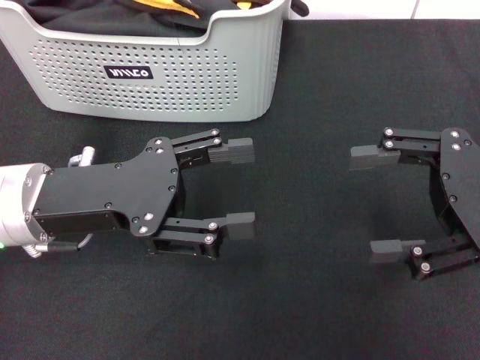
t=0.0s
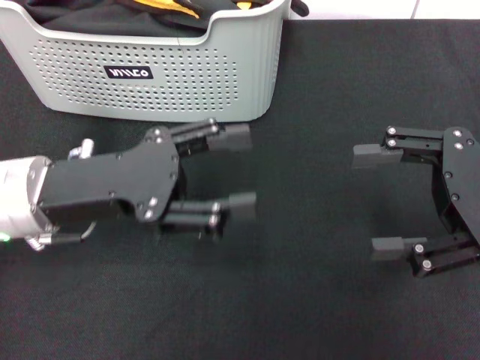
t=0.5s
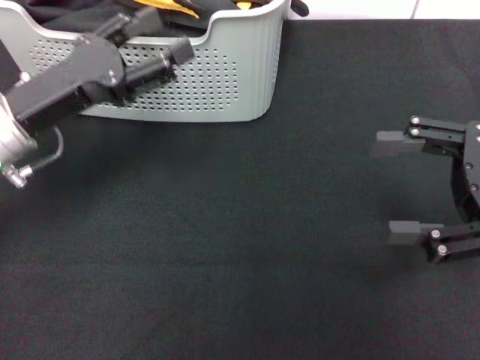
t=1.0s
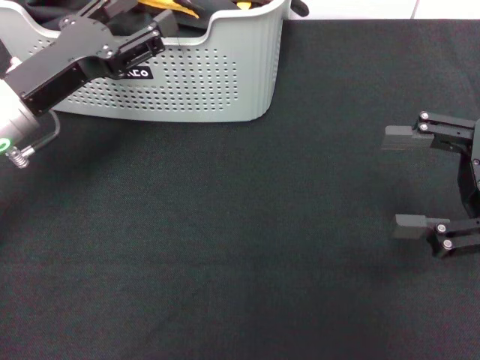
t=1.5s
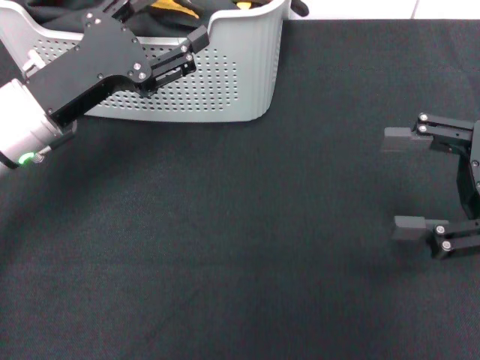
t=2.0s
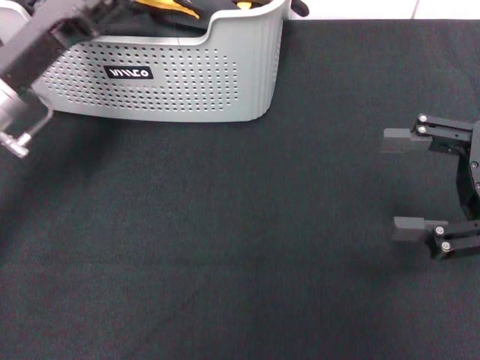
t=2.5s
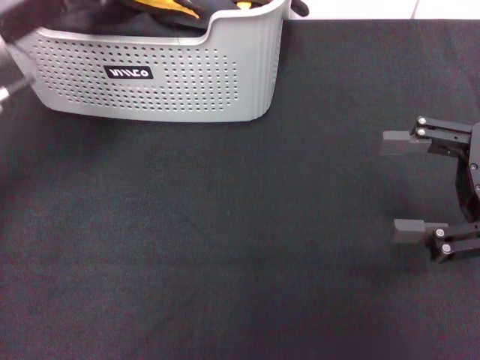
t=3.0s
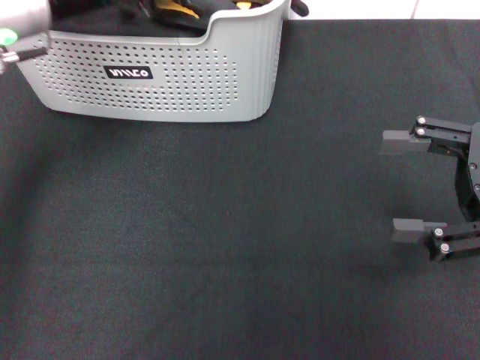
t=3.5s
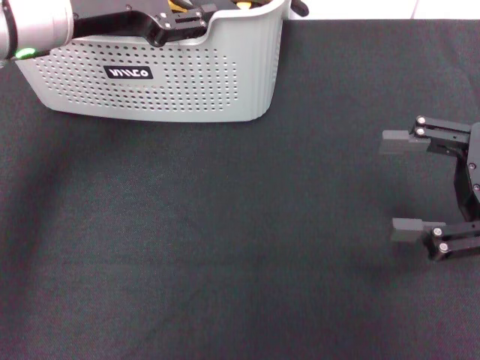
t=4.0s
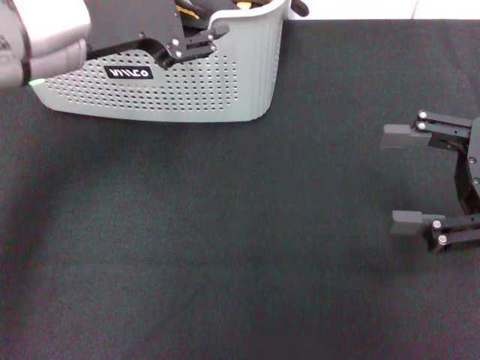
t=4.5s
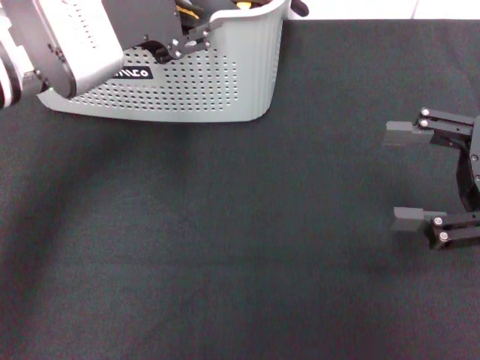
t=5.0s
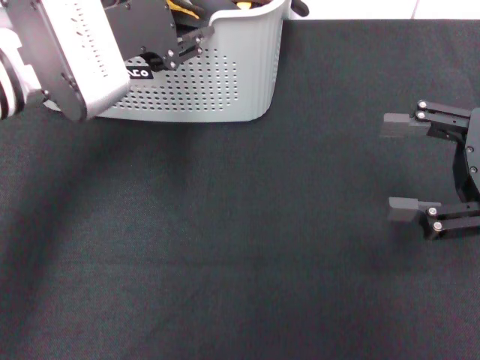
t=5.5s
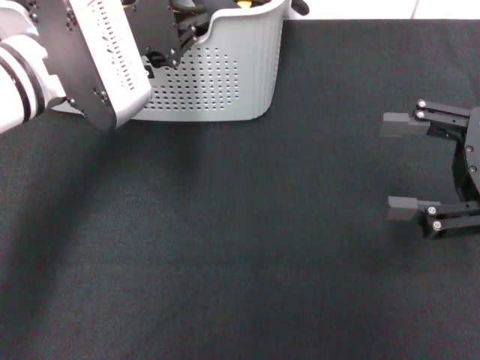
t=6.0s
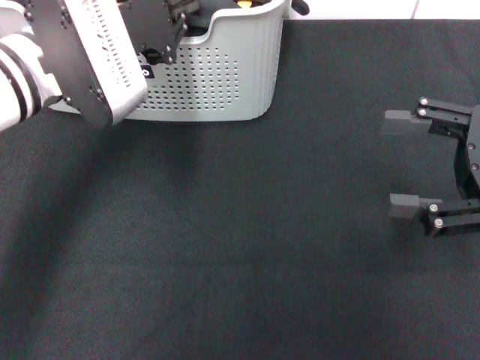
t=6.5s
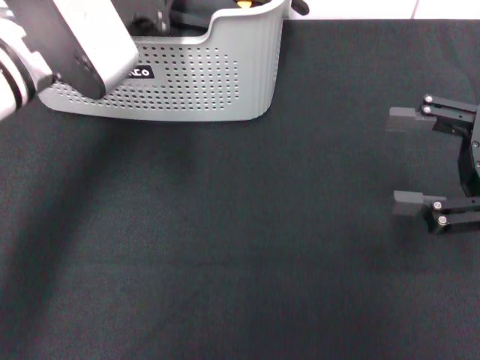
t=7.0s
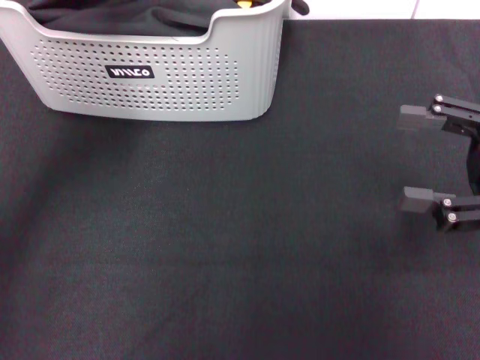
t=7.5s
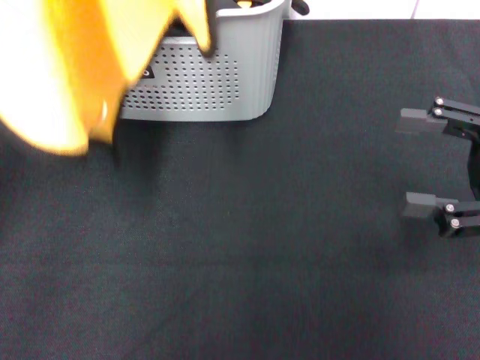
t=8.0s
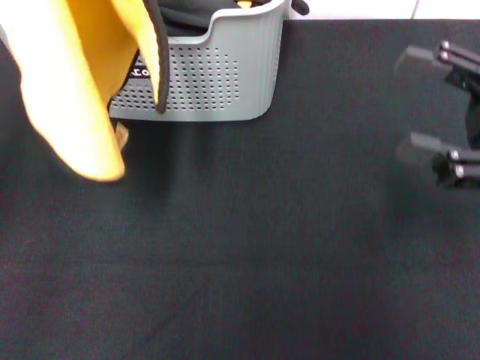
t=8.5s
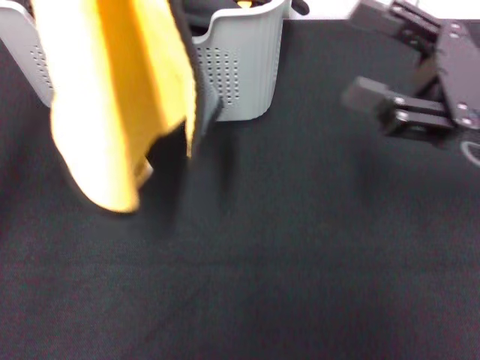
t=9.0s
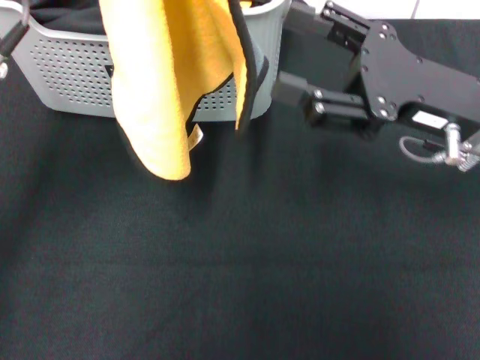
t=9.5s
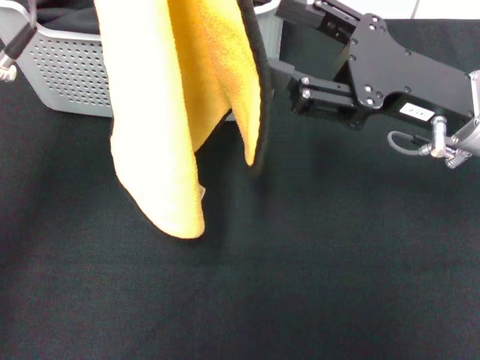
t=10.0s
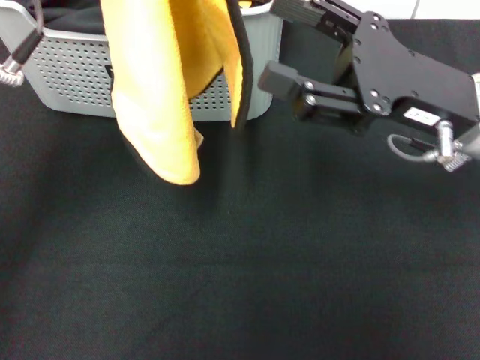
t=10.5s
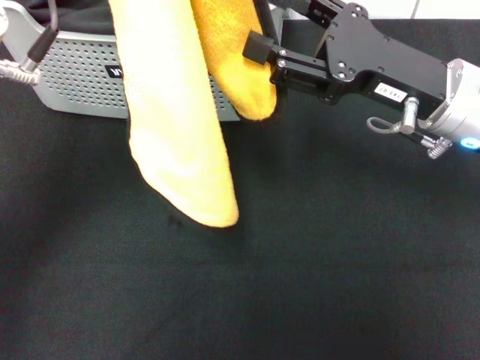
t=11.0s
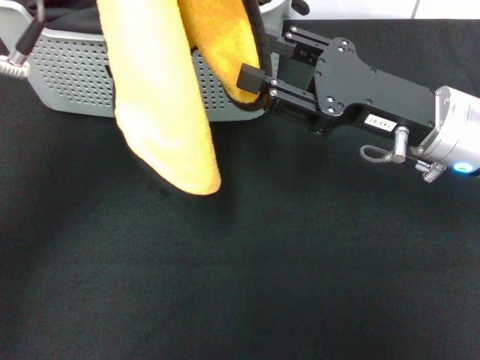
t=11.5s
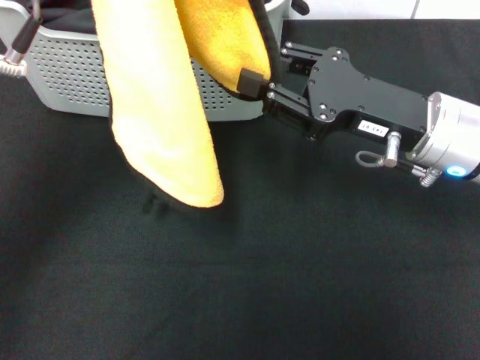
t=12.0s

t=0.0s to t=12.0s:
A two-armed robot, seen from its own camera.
Task of the whole recording: pick up the towel from the storage box and lay it flat on the black tablecloth.
Step, t=0.0s to t=7.0s: Pick up a towel with the left gripper.
t=0.0s to t=2.0s: The left gripper is displaced forward by approximately 5 cm.
t=2.0s to t=4.0s: The left gripper goes about 10 cm upward.
t=4.0s to t=6.0s: The left gripper changes place by some 5 cm.
t=6.0s to t=8.0s: The left gripper heads upward, to the left and backward, covering approximately 15 cm, and closes.
t=8.0s to t=10.0s: The left gripper goes some 10 cm downward and to the right. The right gripper shifts roughly 10 cm to the left and forward.
t=10.0s to t=12.0s: The right gripper closes.

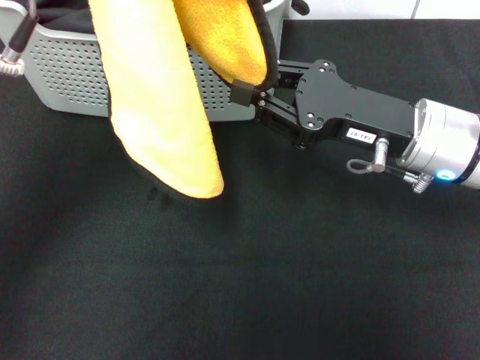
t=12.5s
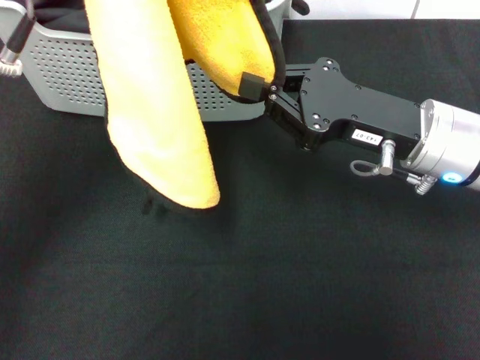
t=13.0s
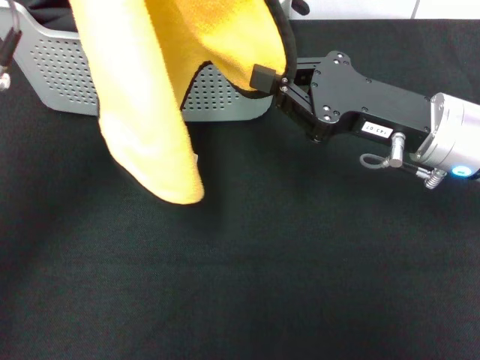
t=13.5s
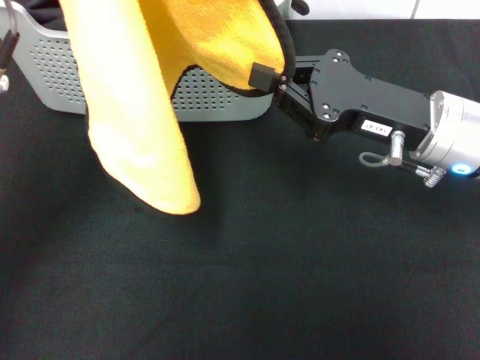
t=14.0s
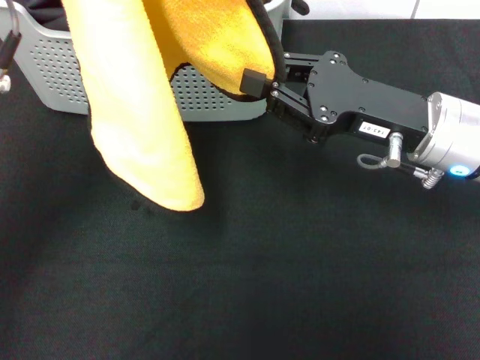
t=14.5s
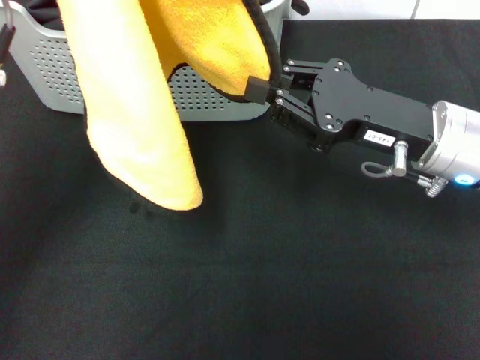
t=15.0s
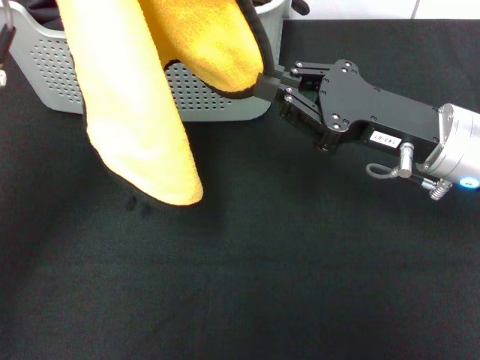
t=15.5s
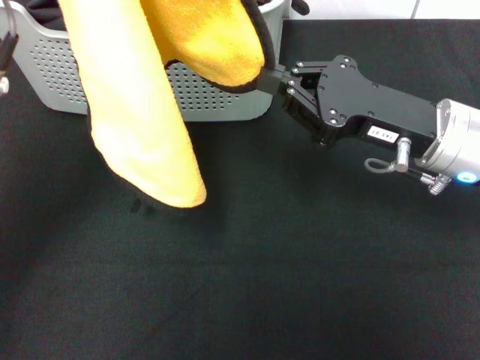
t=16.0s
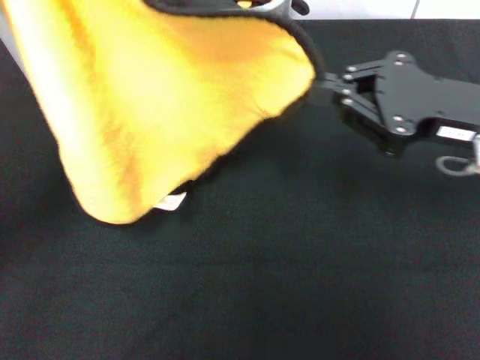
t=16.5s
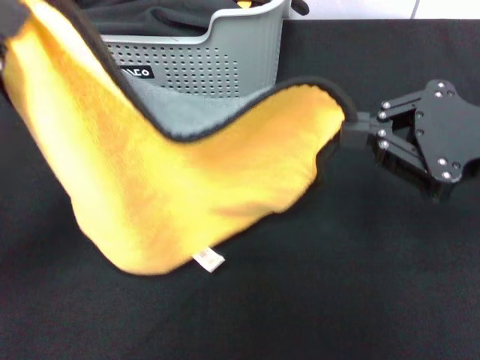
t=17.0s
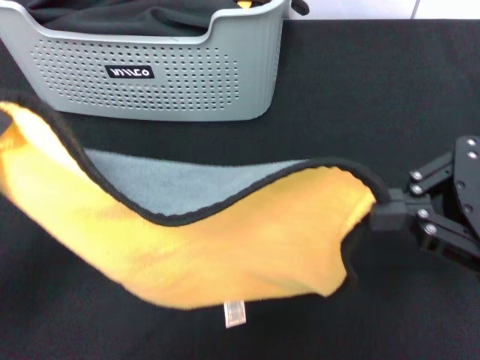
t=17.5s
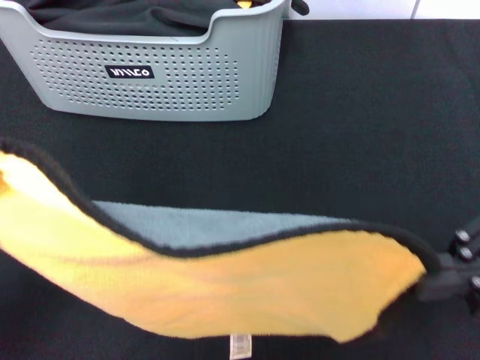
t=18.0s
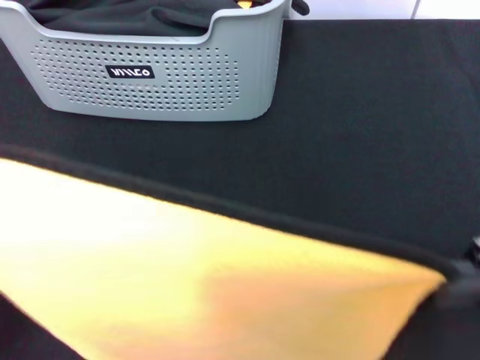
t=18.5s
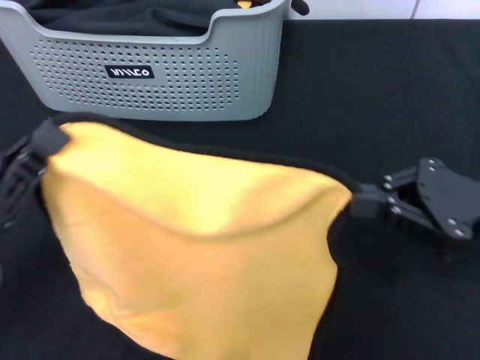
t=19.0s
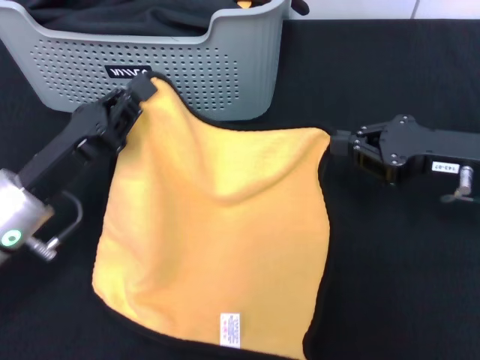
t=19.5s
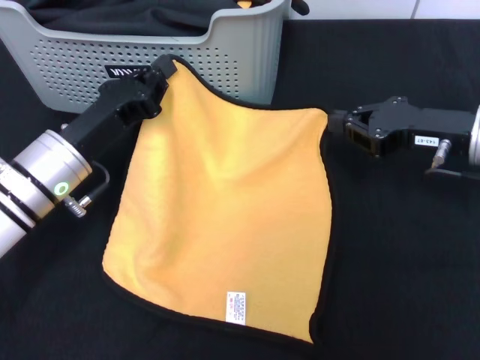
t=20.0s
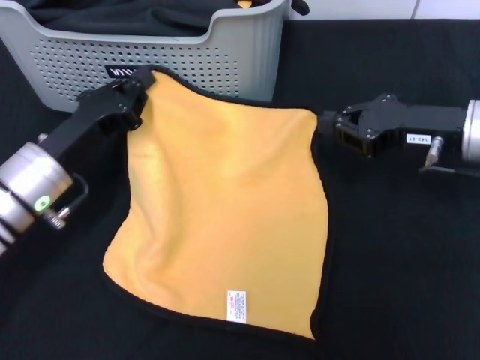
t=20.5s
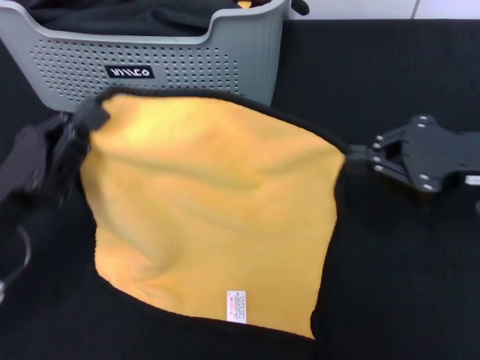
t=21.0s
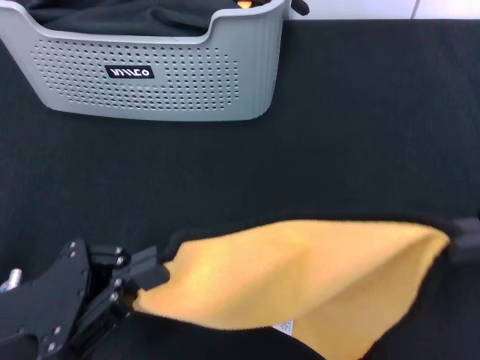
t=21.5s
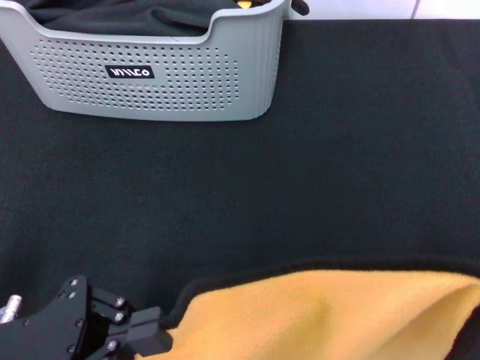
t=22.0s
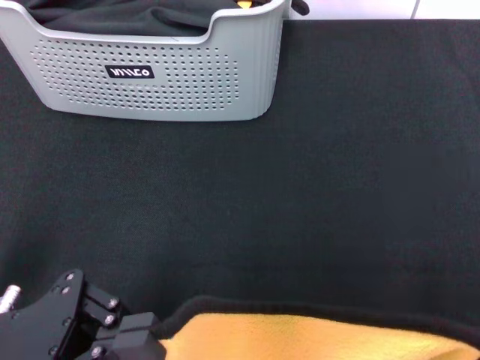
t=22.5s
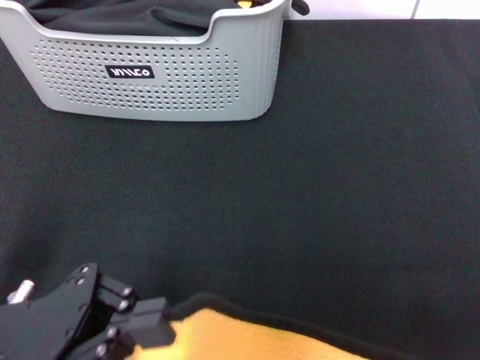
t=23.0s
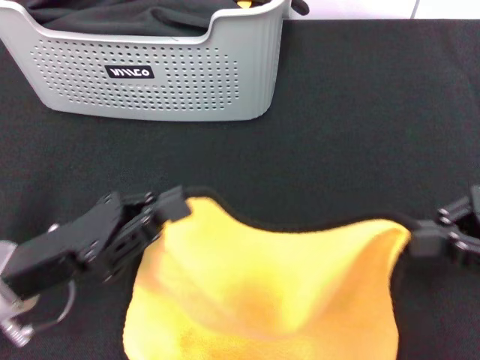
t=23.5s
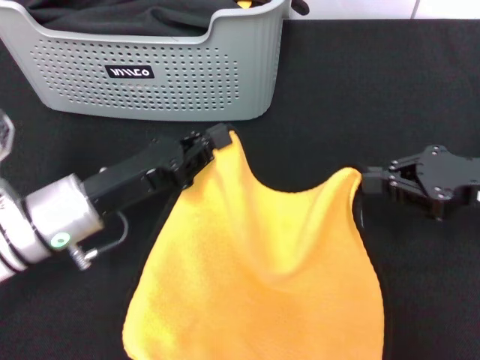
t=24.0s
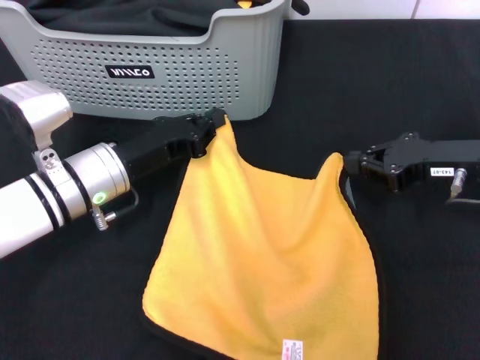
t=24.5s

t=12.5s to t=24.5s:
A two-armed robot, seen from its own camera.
Task of the whole recording: pick up the towel from the storage box and lay it flat on the black tablecloth.
t=12.5s to t=14.5s: There are only small adjustments of the grippers.
t=14.5s to t=16.5s: The left gripper moves downward and to the left, about 10 cm, while the right gripper shifts about 5 cm to the right.
t=16.5s to t=18.5s: The left gripper shifts roughly 15 cm backward, while the right gripper is displaced backward and to the right by about 10 cm.
t=18.5s to t=20.5s: The right gripper is displaced forward and downward by approximately 15 cm; the left gripper moves forward, downward and to the right, some 20 cm.
t=20.5s to t=22.5s: The left gripper goes approximately 15 cm backward and upward; the right gripper heads backward, upward and to the right, covering about 20 cm.
t=22.5s to t=24.5s: Both grippers move forward and downward, approximately 20 cm.

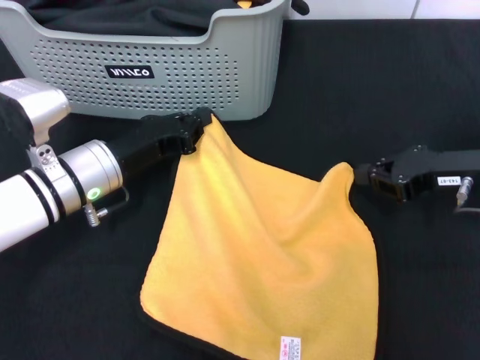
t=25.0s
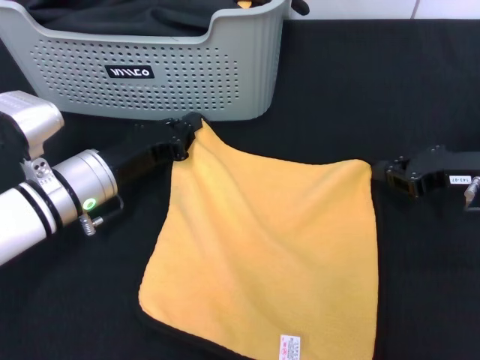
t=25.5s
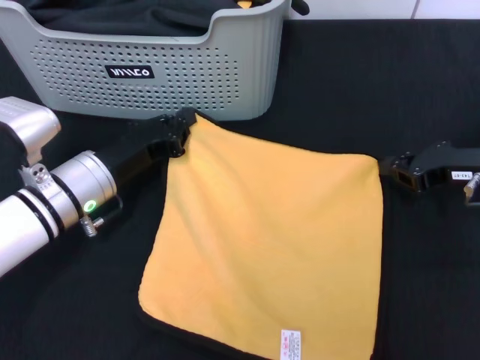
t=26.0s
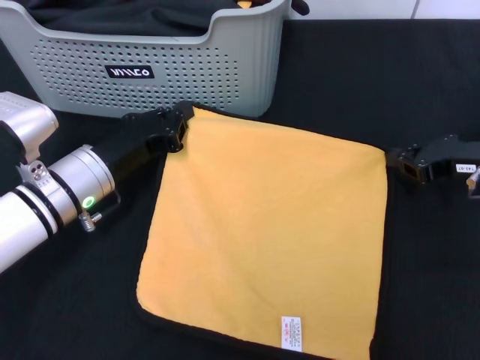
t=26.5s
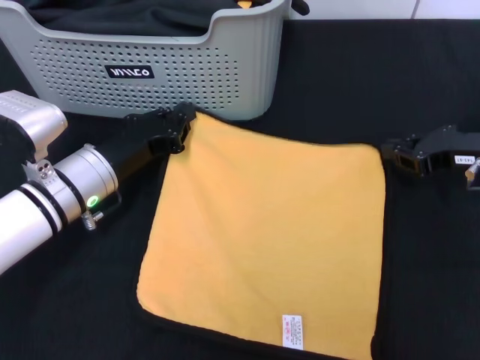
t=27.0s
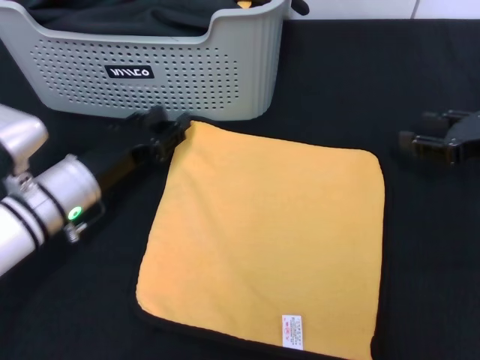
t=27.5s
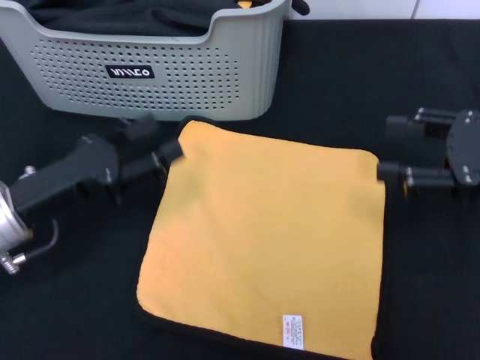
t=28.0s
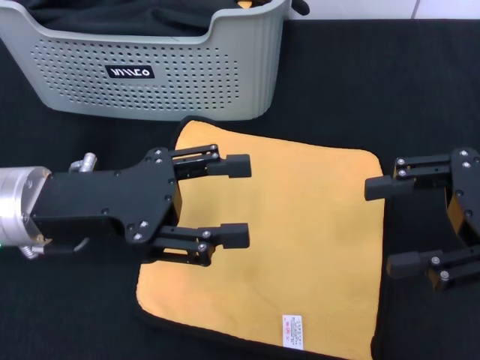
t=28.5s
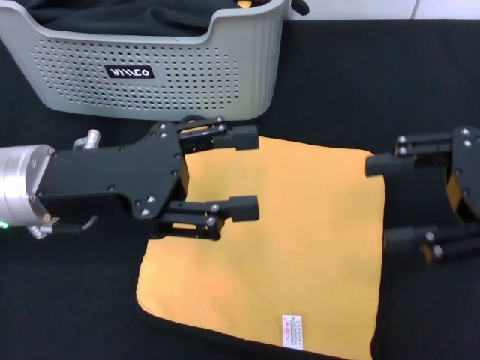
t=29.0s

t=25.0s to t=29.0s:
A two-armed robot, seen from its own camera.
Task of the whole recording: pick up the towel from the storage box and lay it flat on the black tablecloth.
Step, t=25.0s to t=27.0s: Spread the towel flat with the right gripper.
t=25.0s to t=27.0s: The grippers move only a little.
t=27.0s to t=29.0s: The right gripper heads upward and backward, covering about 15 cm, and opens. Meanwhile the left gripper is displaced upward by some 10 cm, and opens its fingers.
